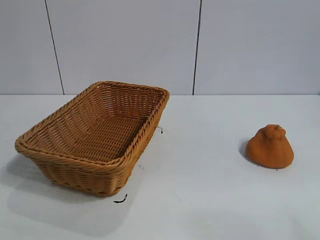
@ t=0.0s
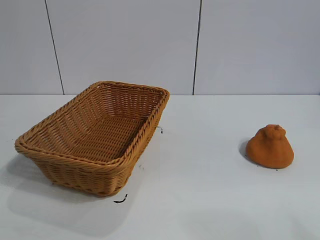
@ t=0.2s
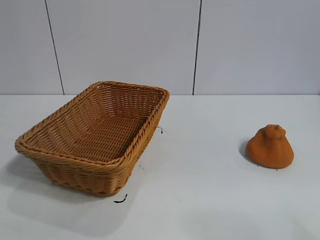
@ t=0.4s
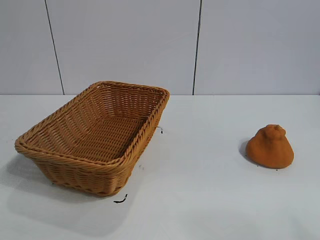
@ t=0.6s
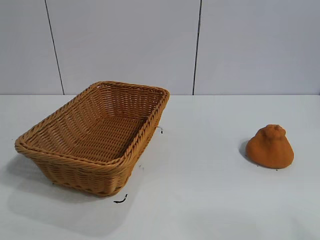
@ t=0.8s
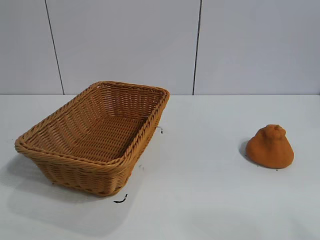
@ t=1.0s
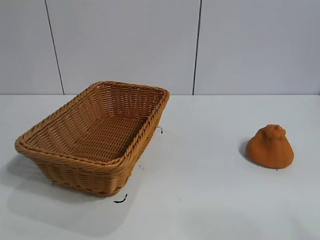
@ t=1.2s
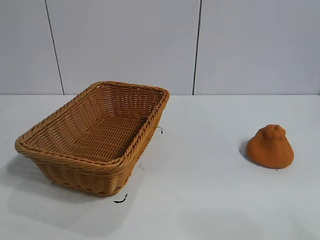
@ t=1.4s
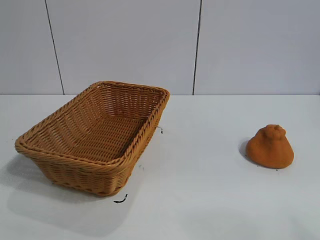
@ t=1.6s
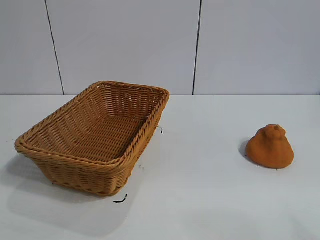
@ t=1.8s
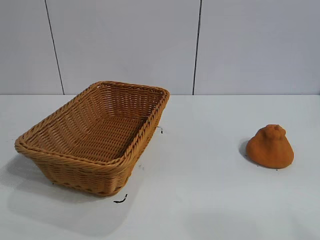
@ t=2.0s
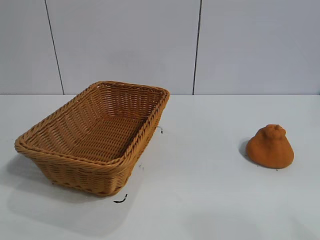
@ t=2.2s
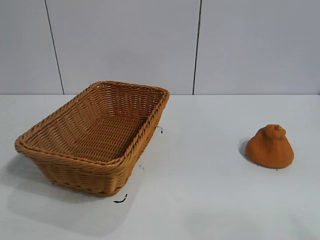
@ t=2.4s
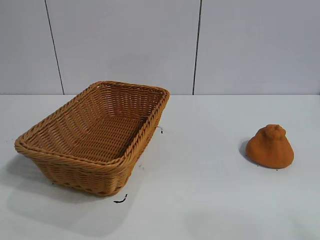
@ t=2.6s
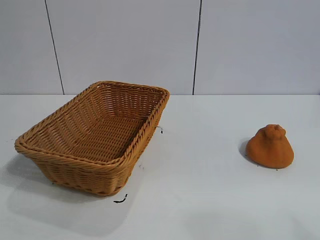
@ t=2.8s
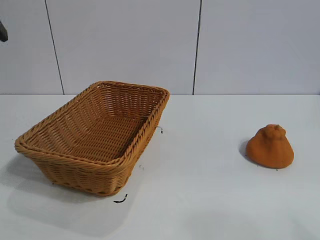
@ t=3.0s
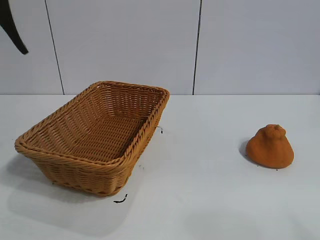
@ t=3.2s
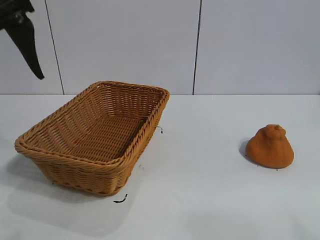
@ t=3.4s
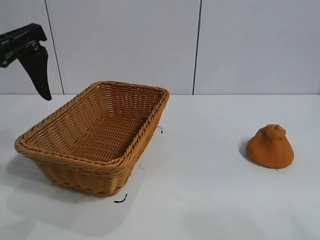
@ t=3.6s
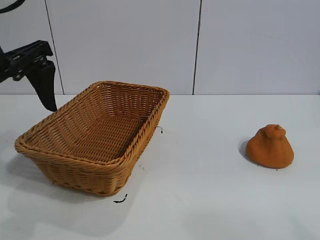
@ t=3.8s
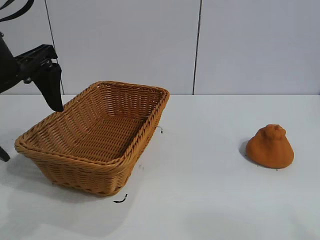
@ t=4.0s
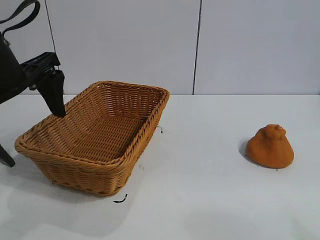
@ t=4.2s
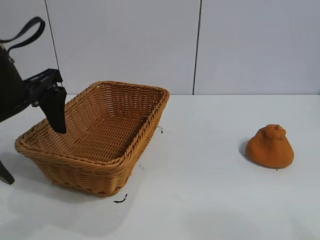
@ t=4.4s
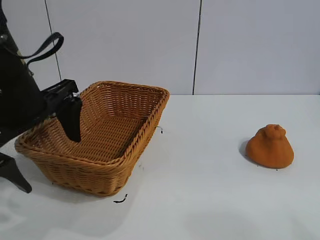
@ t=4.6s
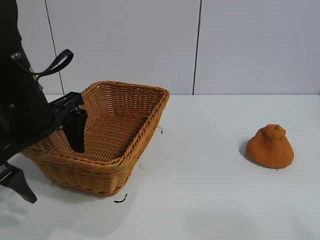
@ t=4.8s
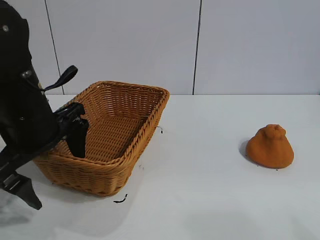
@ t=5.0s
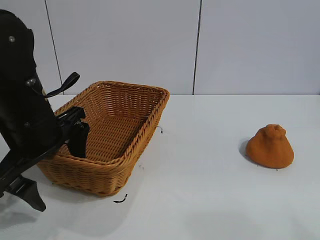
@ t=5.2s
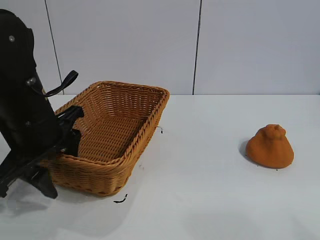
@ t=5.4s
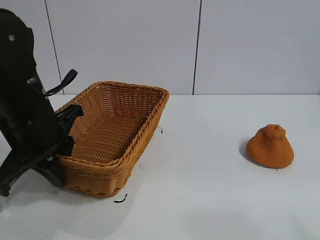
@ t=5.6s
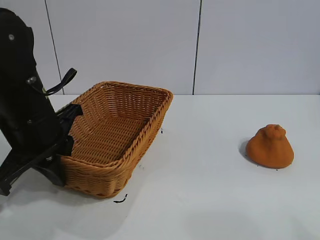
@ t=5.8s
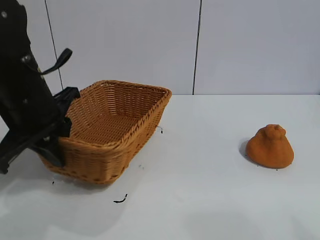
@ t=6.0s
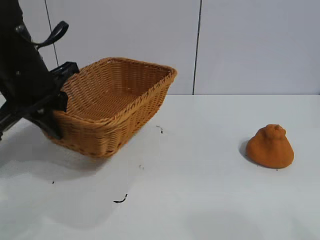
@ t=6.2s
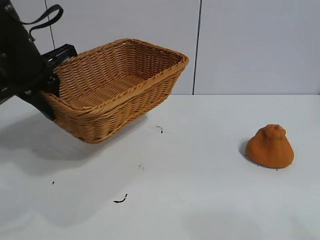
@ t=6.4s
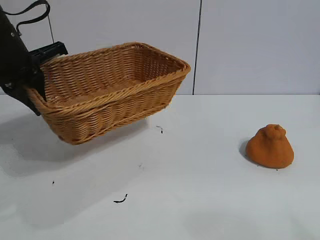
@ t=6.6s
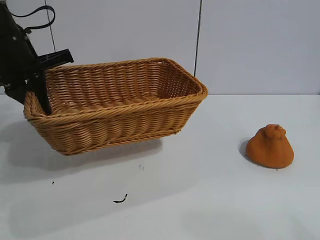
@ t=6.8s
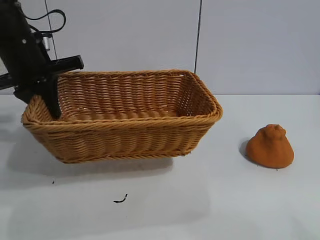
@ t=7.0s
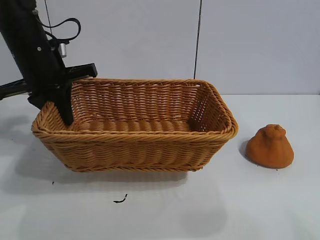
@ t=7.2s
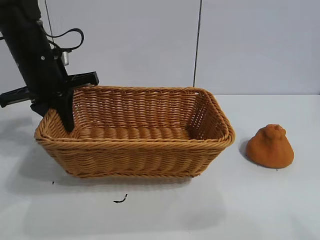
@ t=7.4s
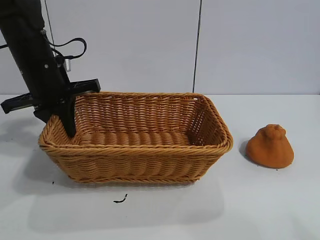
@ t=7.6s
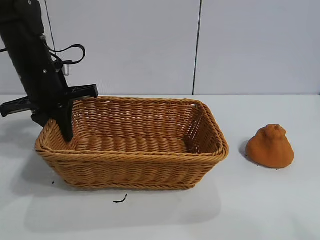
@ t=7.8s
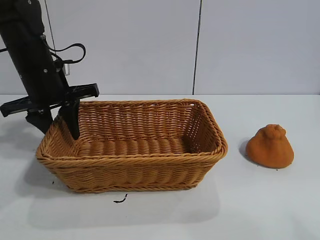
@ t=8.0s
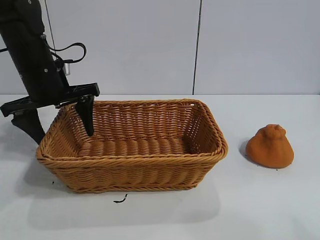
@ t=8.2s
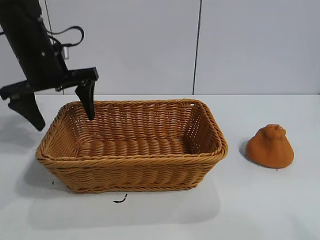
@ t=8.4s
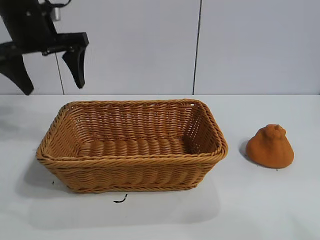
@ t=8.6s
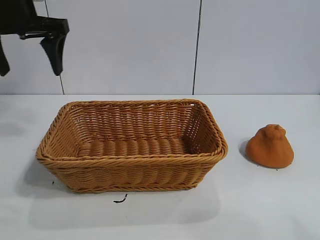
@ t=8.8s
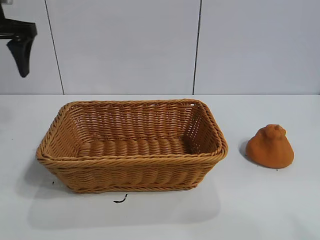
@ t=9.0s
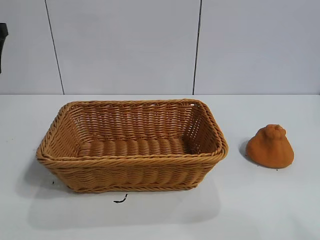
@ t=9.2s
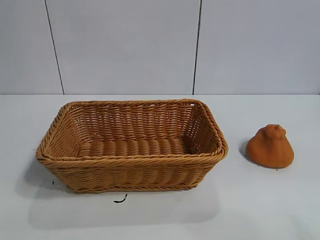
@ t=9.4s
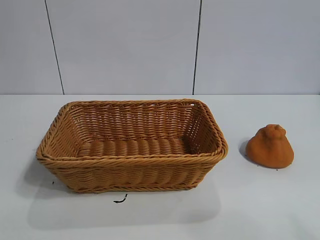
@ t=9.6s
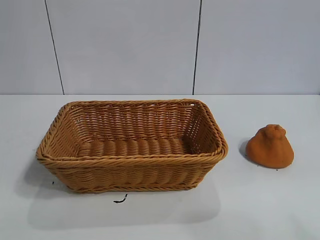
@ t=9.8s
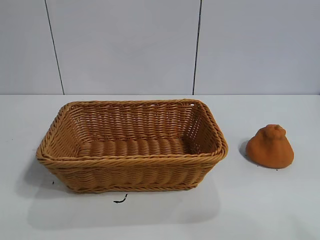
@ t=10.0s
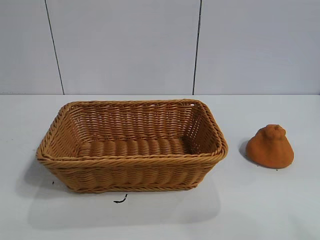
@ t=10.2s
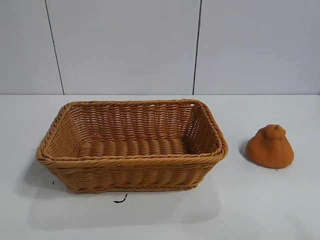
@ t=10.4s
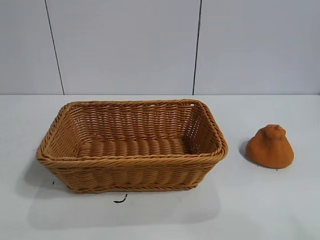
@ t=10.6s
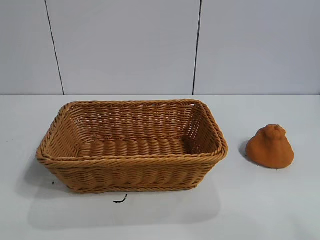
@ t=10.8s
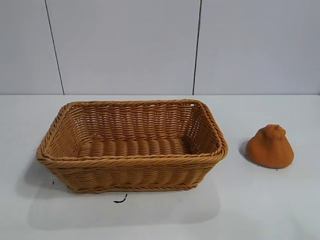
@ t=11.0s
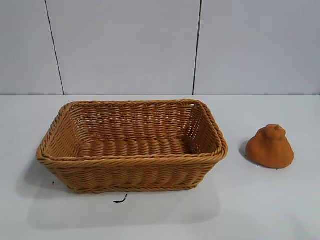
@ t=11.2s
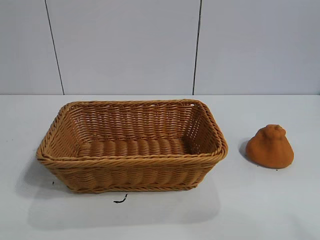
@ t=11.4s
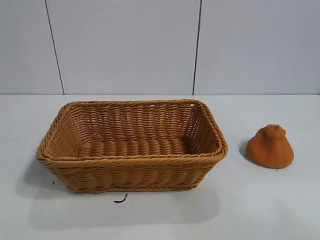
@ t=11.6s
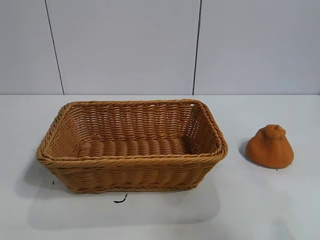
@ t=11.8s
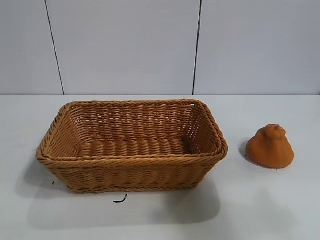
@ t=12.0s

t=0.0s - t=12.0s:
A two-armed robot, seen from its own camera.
Task of the whole recording: pick up the orange and put it into the basket.
Step, t=1.6s - t=5.6s: Grasp the basket with left gripper.
Step, t=5.8s - t=8.2s: Place the basket in the center of view with left gripper.

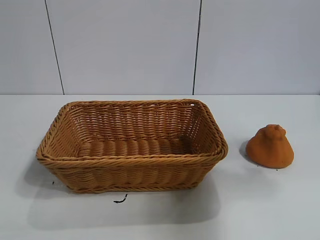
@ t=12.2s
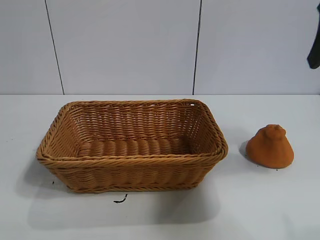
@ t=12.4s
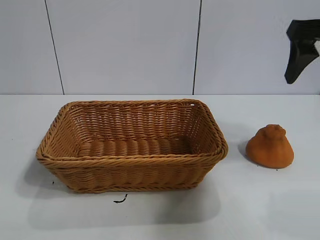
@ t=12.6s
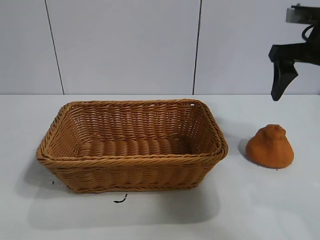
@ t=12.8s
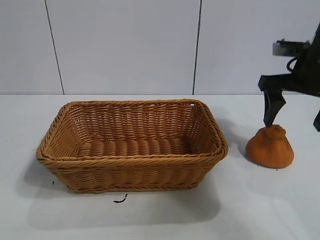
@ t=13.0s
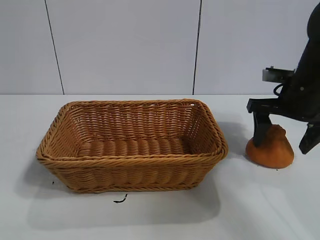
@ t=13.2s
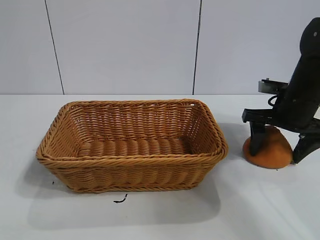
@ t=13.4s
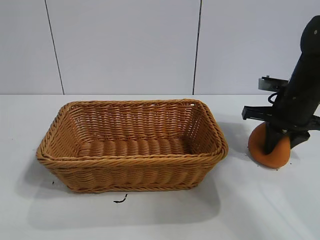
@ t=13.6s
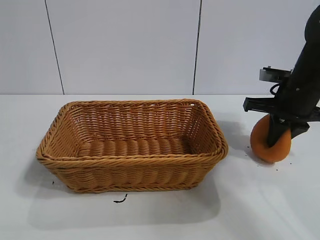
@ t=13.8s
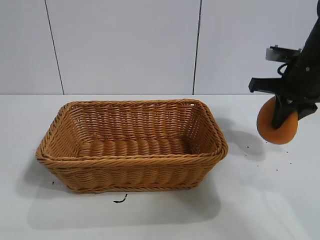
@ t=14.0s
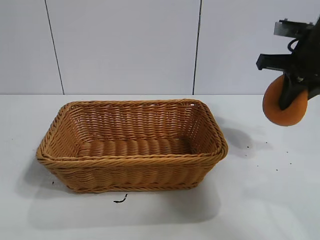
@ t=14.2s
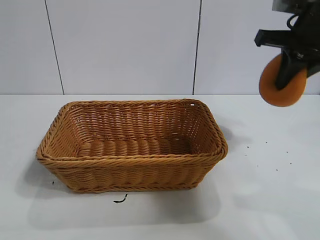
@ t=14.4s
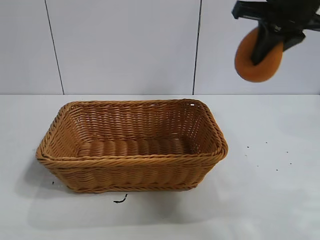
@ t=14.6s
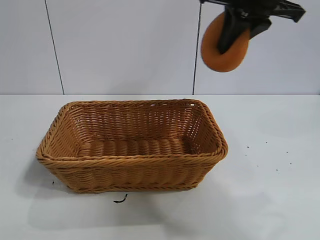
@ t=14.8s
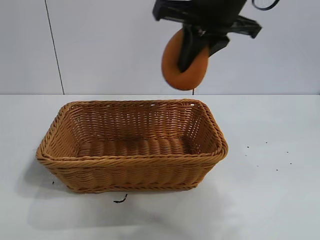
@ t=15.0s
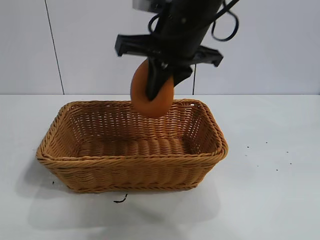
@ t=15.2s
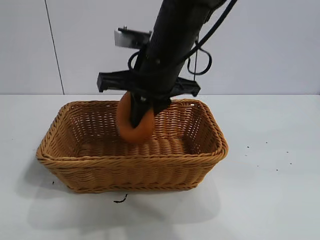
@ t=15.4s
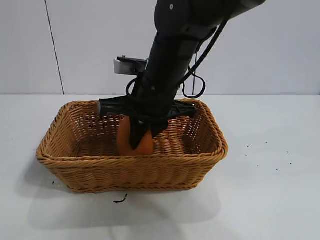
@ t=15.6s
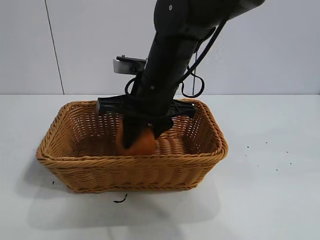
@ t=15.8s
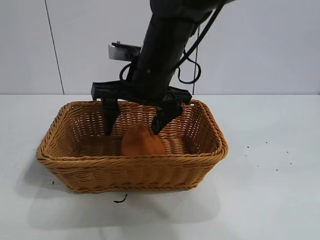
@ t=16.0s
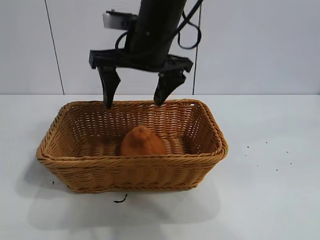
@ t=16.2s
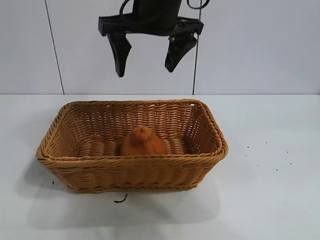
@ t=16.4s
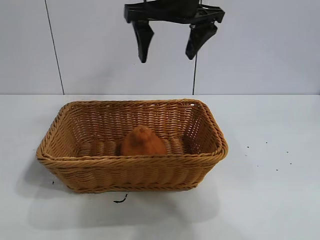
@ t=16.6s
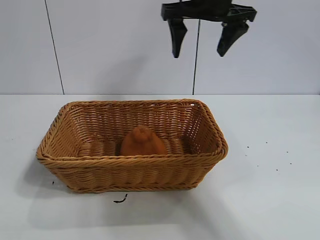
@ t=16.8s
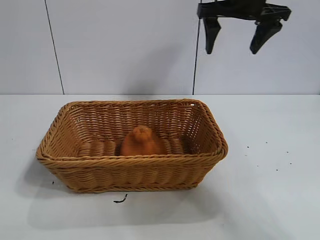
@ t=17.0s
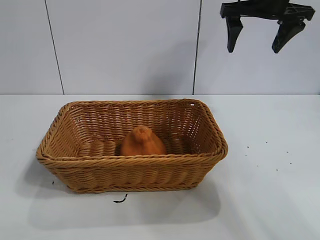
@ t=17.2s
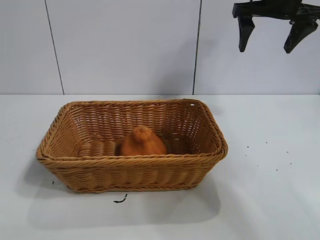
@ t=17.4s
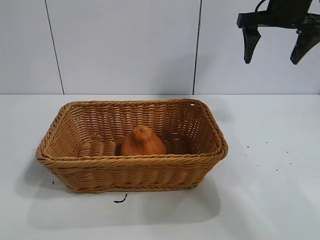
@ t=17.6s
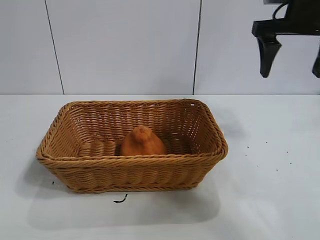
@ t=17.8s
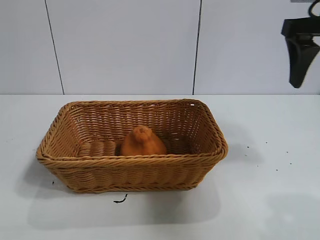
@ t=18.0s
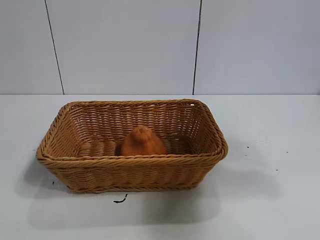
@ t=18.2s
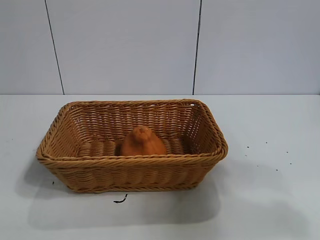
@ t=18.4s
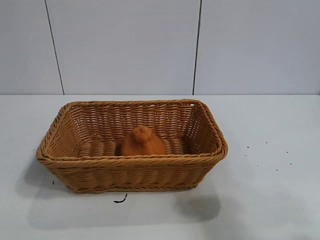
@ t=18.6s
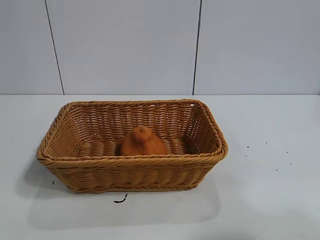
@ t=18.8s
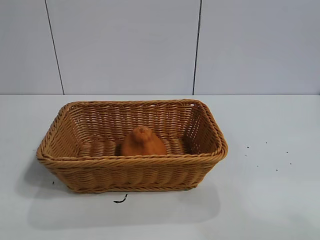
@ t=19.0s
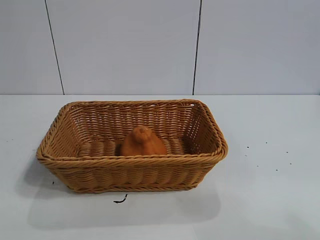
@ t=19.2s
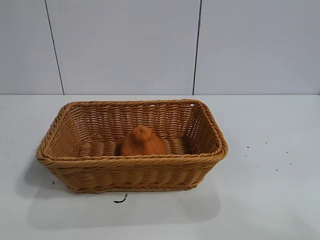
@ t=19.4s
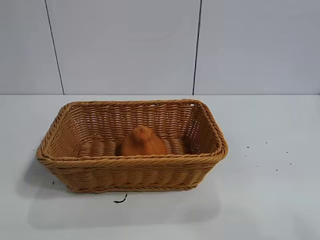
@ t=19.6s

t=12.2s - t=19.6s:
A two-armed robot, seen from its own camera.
Task of the whole recording: pick up the orange and put it into the basket.
Step, t=14.0s - t=16.0s: Place the orange in the basket with right gripper.
